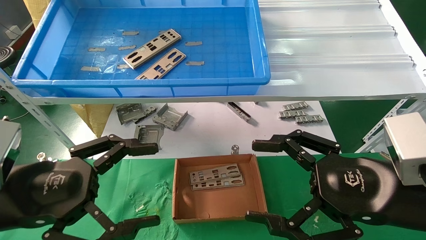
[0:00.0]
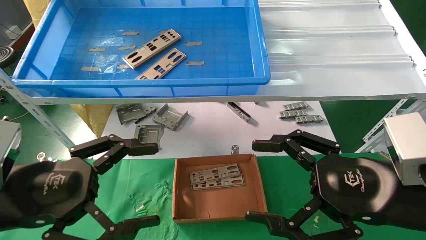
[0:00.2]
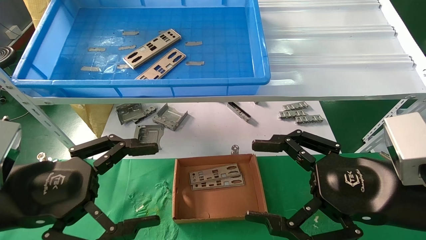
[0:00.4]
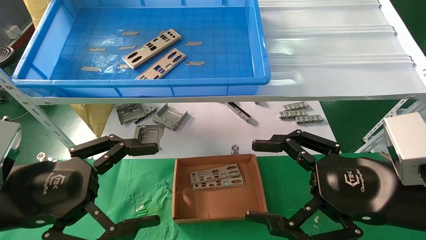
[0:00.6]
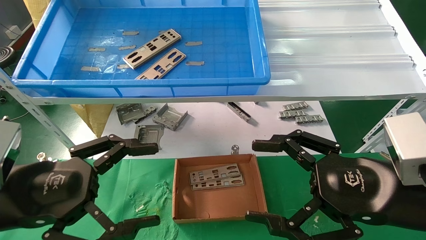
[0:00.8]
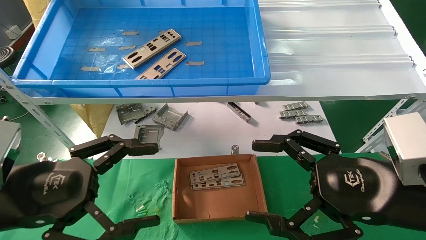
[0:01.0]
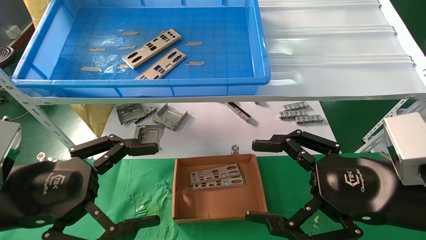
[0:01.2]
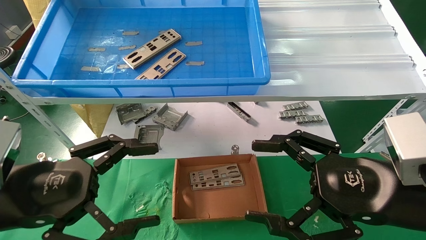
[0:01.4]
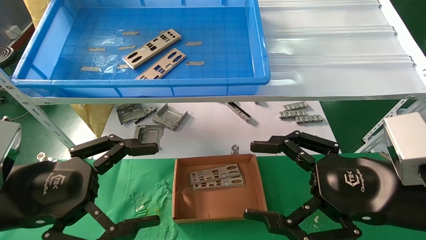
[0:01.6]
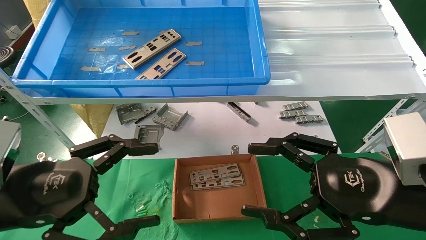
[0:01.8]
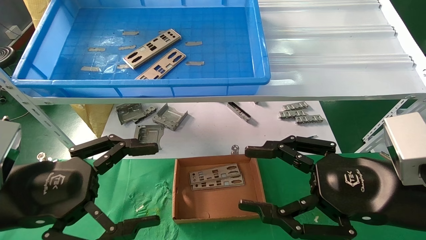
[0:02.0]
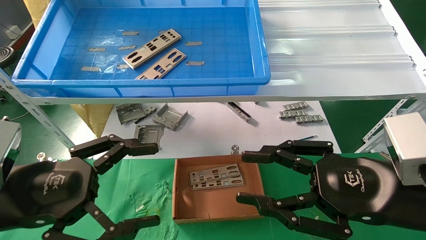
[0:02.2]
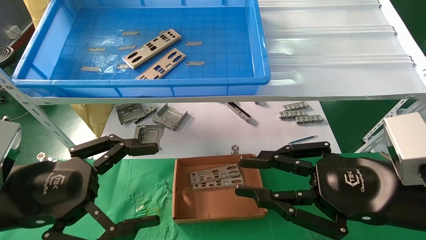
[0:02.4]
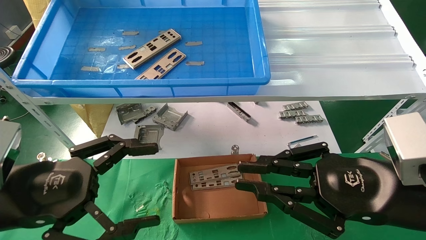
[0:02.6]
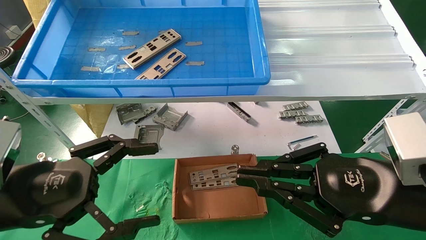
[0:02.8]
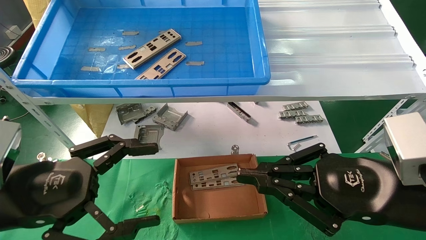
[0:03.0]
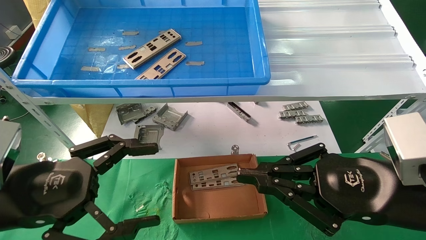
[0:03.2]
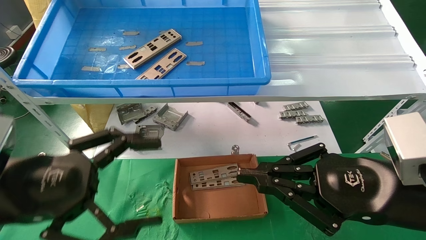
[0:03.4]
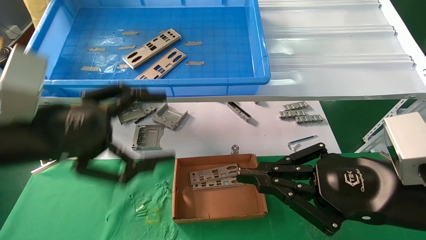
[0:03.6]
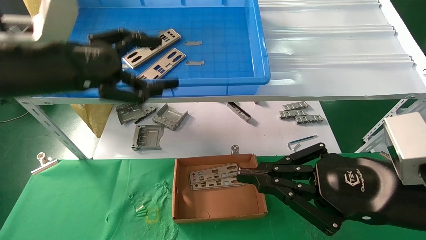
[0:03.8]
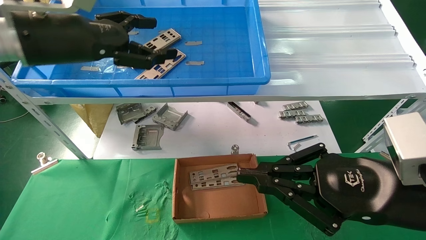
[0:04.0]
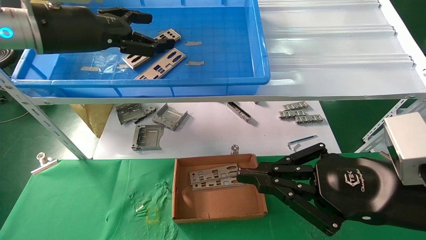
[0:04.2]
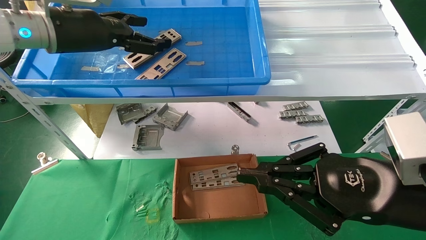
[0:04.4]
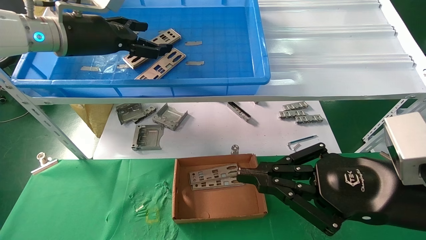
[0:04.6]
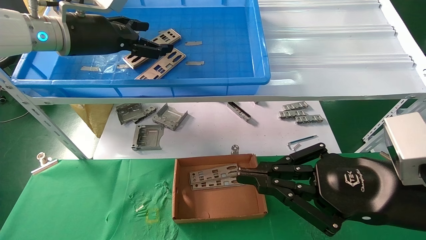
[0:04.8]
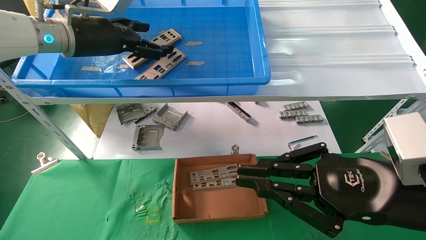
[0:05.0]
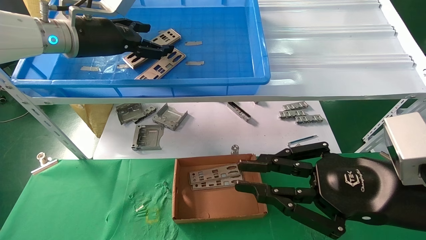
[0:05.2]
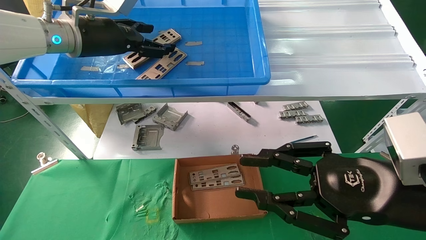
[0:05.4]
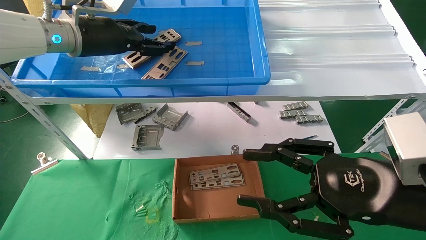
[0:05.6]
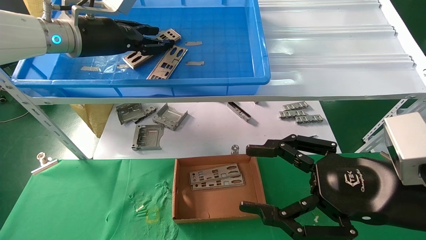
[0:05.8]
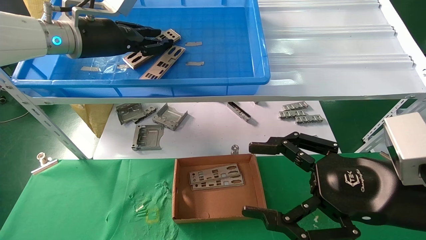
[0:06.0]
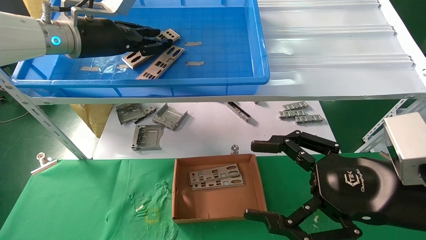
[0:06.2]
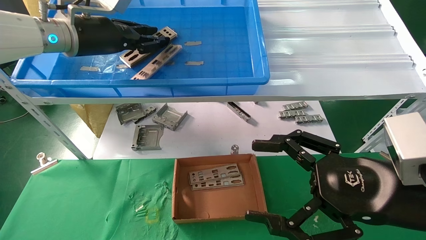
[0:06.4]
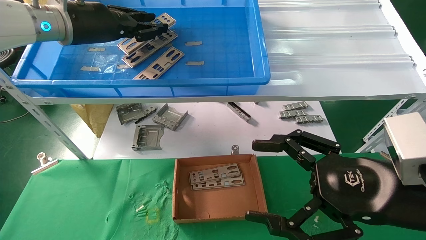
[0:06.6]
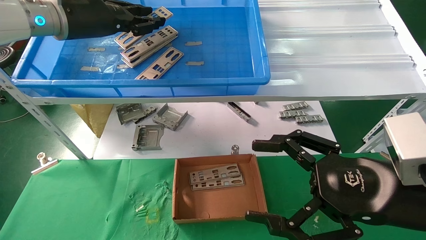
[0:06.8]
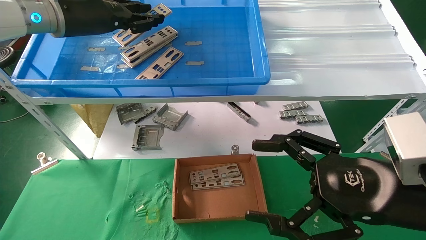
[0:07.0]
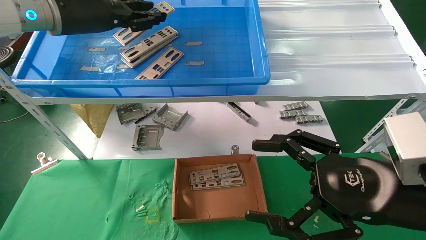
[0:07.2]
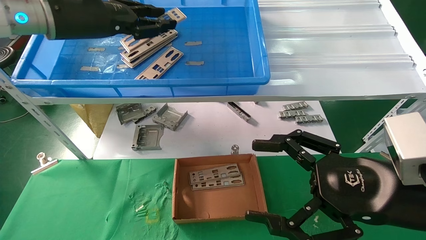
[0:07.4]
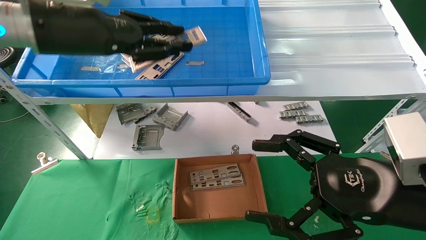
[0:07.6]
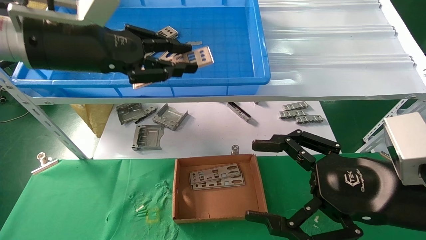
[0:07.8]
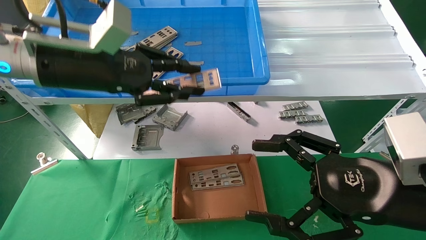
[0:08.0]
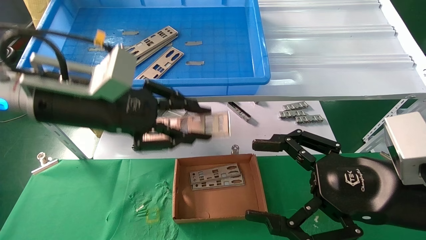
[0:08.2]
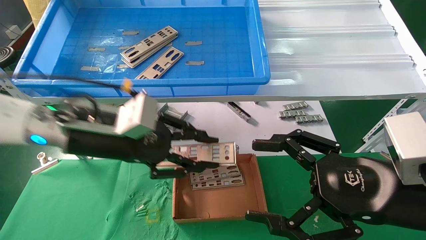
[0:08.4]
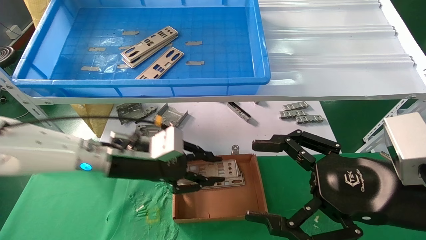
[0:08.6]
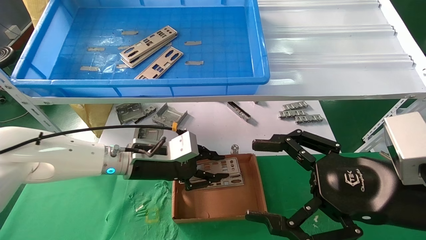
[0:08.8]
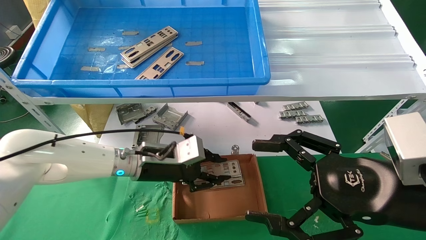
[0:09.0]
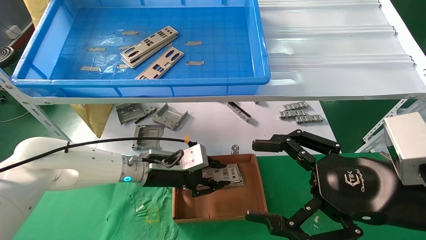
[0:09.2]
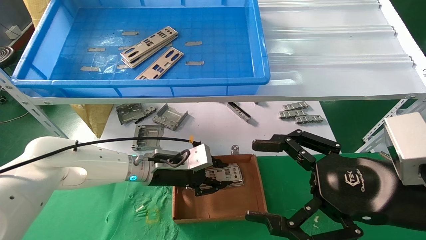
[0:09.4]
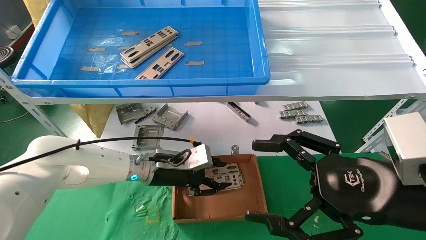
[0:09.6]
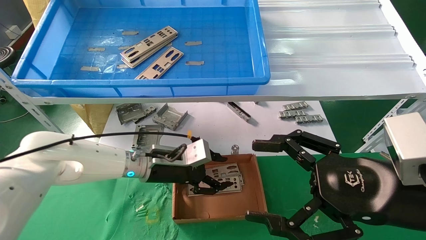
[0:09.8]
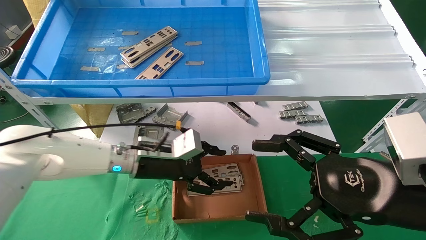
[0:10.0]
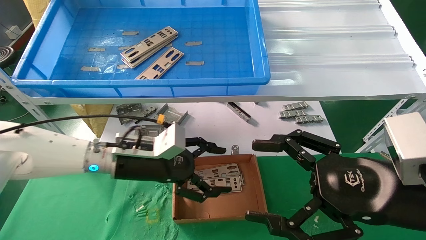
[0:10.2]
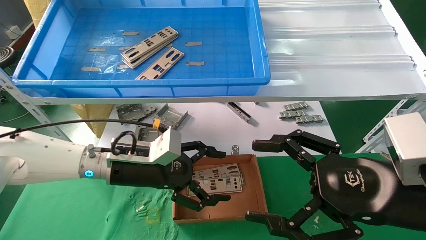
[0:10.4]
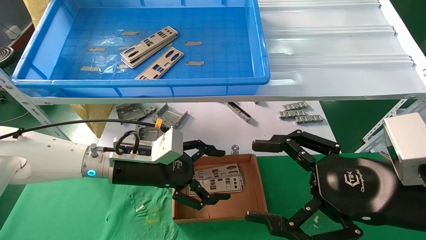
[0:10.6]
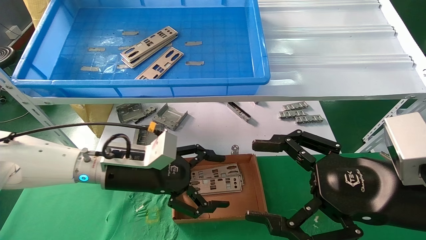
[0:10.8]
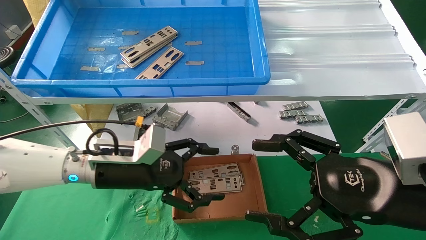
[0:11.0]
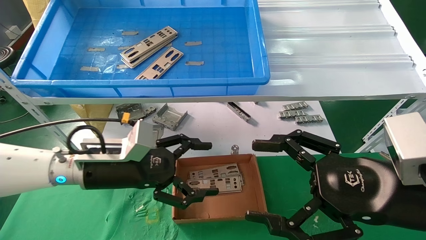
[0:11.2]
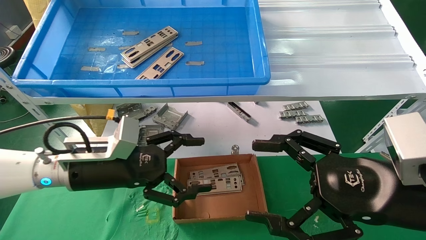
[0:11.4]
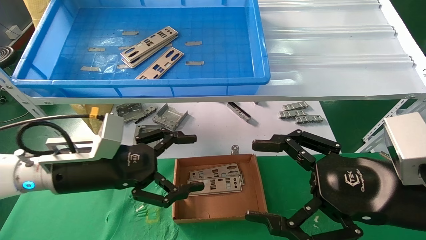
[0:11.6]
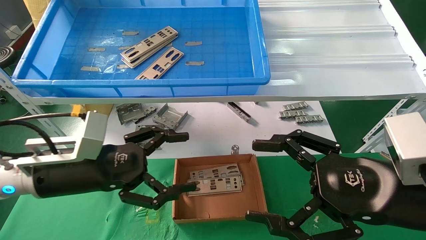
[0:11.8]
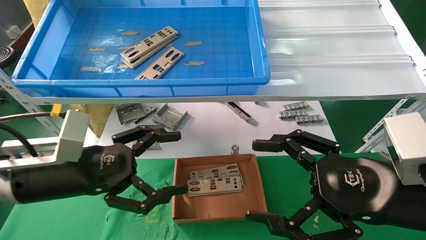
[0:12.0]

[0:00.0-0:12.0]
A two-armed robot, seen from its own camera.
Task of the whole recording: pick up the parts on the tray and put them in the cardboard box.
Step, 0:03.8 to 0:06.2: Pick up the IO bracket from the container box.
Step, 0:06.4 to 0:09.6: Place the IO bracket into the ingredient slot.
0:00.0 to 0:01.6: Both grippers stay about where they are.
0:01.6 to 0:03.0: The right gripper closes its fingers.
0:03.0 to 0:04.4: The left gripper heads forward and upward, covering some 25 cm.
0:04.4 to 0:06.0: The left gripper closes up, while the right gripper opens up.
0:06.0 to 0:07.6: The left gripper goes some 10 cm backward.
0:07.6 to 0:09.0: The left gripper shifts about 25 cm downward.
0:09.0 to 0:10.4: The left gripper moves approximately 5 cm, and opens up.
0:10.4 to 0:12.0: The left gripper moves backward and to the left, some 15 cm.

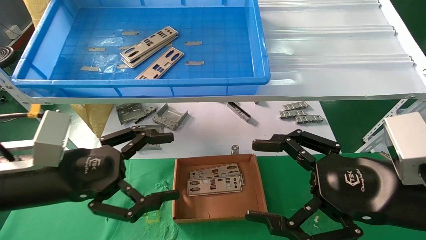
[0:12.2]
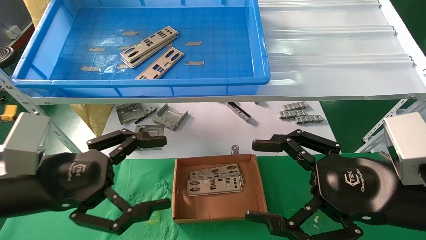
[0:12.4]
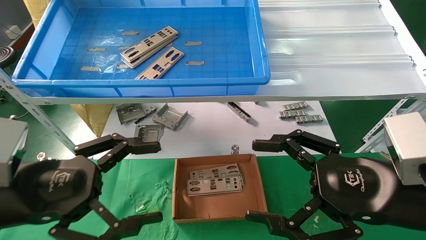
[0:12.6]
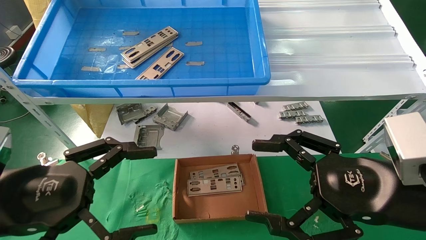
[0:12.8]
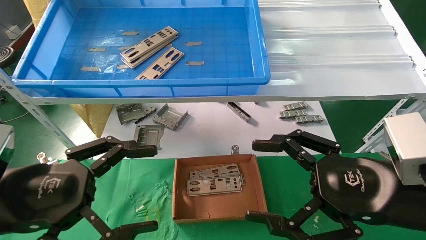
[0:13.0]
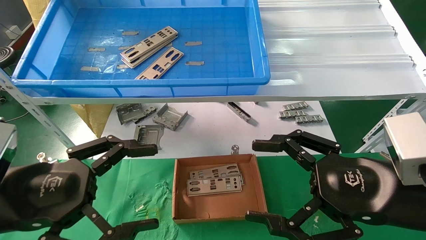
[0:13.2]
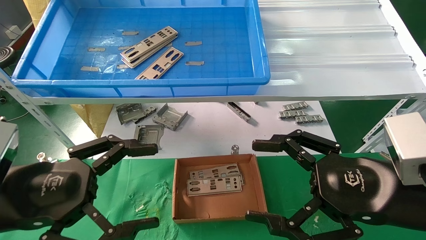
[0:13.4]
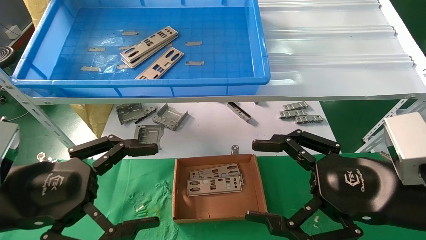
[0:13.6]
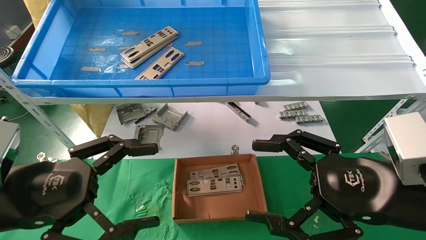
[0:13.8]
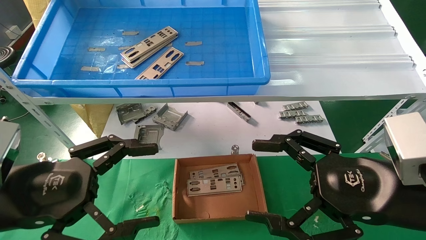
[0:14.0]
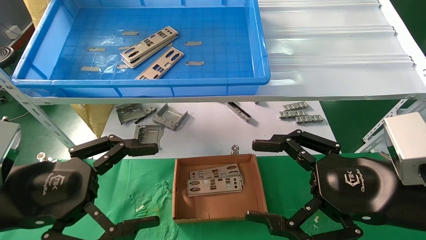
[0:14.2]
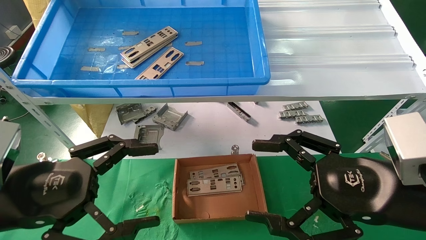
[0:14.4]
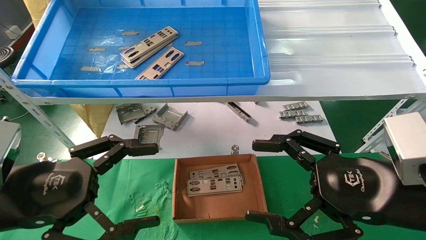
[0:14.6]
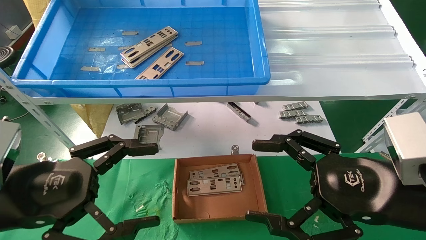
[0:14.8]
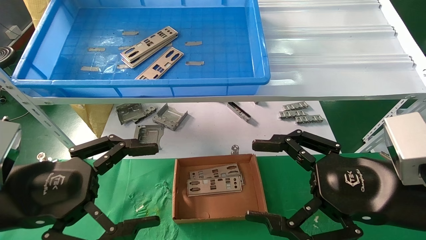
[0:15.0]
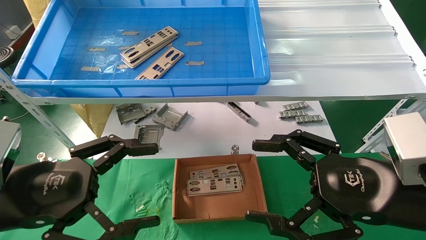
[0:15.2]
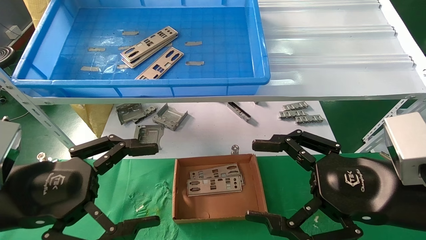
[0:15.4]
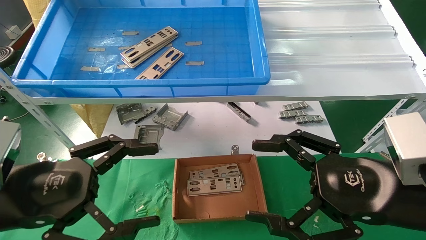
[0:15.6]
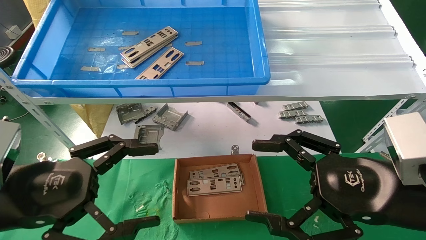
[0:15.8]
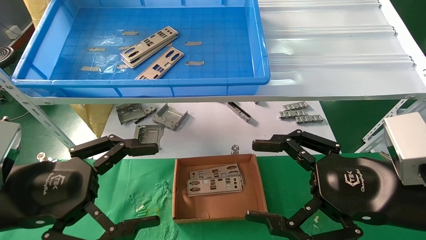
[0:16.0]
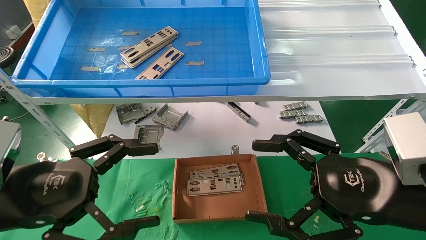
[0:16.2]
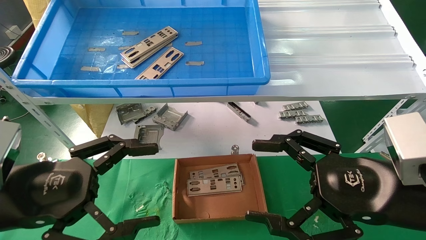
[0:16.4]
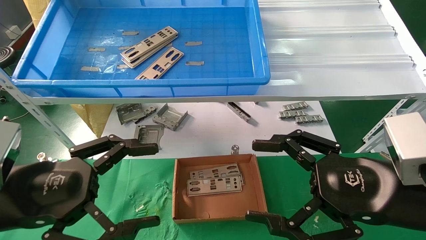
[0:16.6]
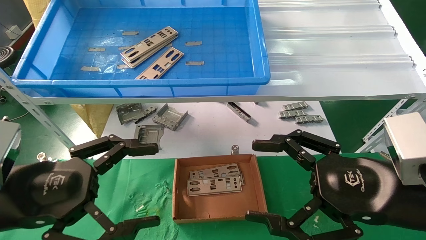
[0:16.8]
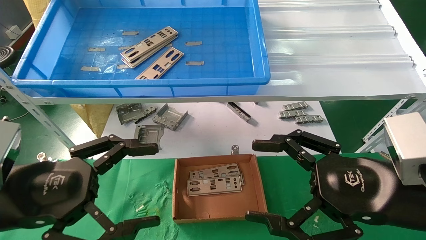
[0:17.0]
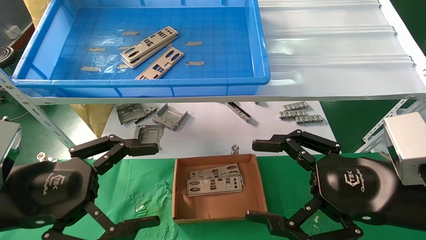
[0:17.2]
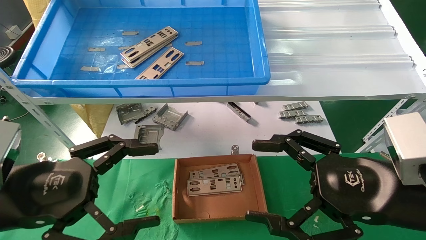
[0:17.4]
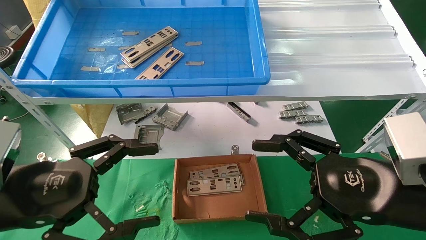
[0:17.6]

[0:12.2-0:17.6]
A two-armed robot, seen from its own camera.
Task of the whole recording: pick up the parts on the tray and put them in the cardboard box.
0:12.2 to 0:13.6: The left gripper is displaced backward by approximately 5 cm.
0:13.6 to 0:17.6: Both grippers stay put.
